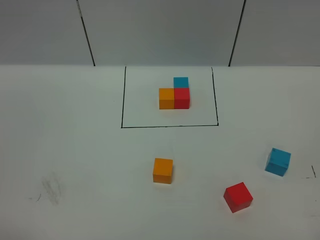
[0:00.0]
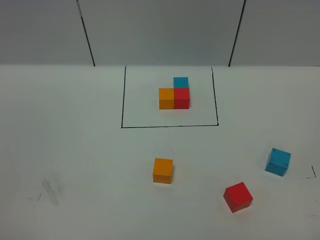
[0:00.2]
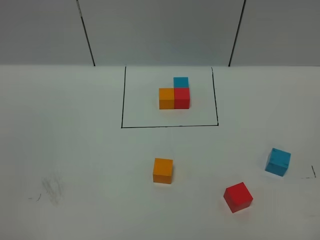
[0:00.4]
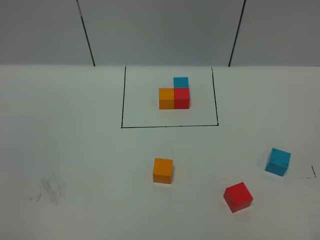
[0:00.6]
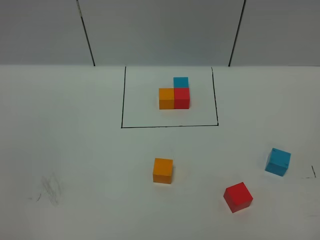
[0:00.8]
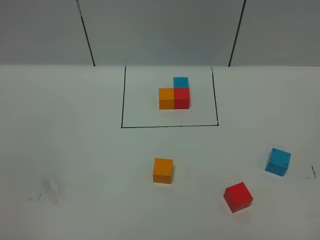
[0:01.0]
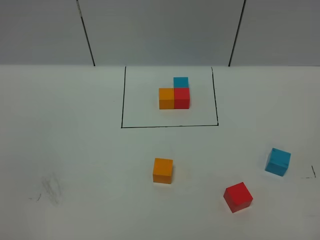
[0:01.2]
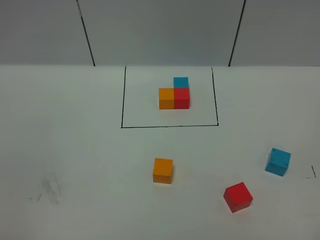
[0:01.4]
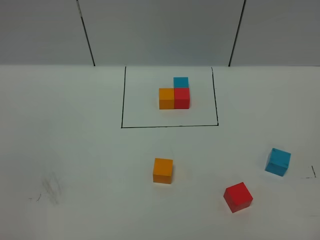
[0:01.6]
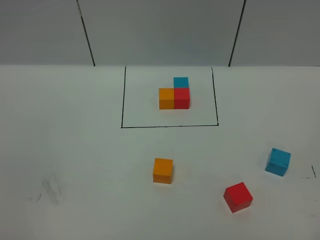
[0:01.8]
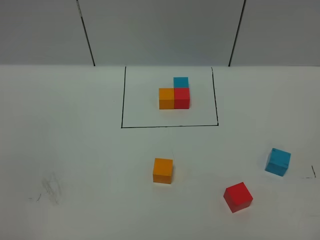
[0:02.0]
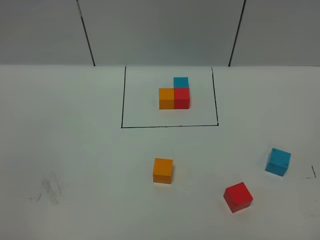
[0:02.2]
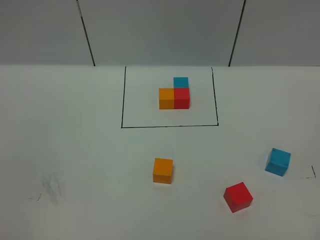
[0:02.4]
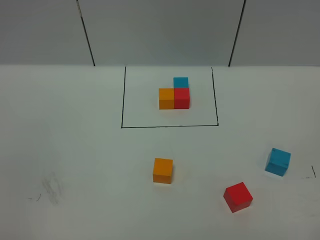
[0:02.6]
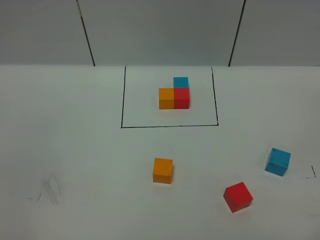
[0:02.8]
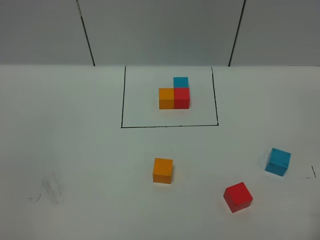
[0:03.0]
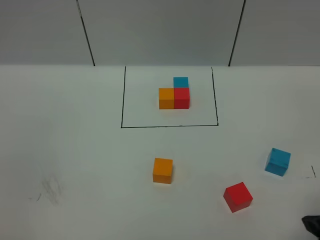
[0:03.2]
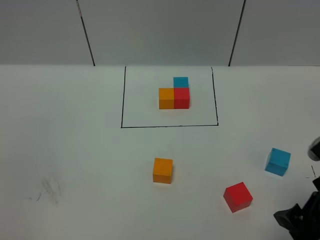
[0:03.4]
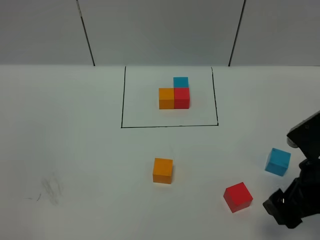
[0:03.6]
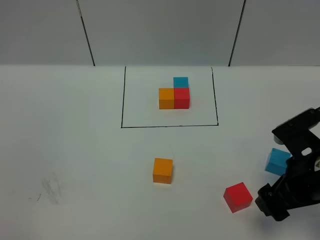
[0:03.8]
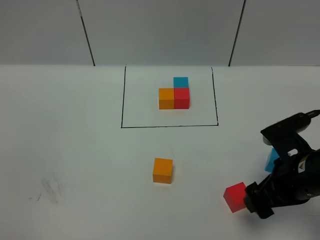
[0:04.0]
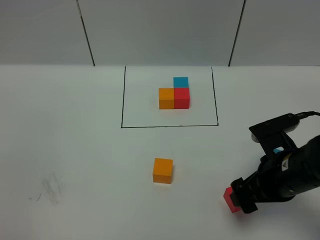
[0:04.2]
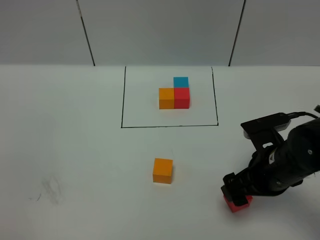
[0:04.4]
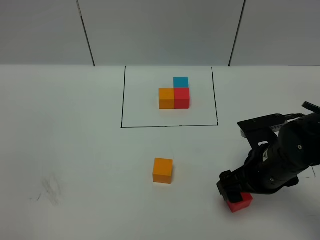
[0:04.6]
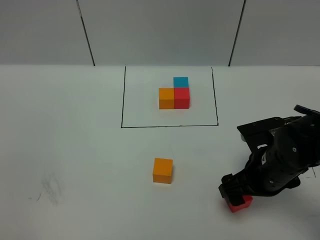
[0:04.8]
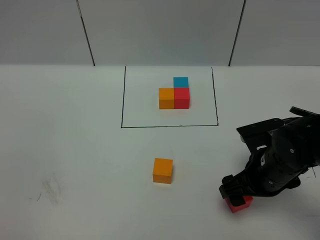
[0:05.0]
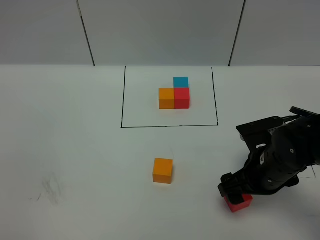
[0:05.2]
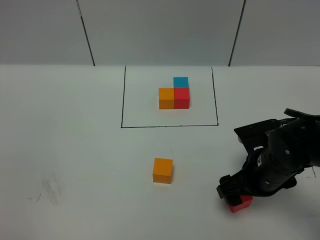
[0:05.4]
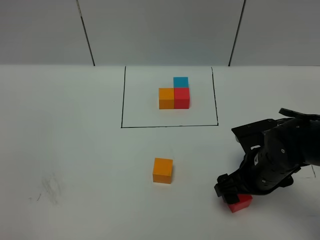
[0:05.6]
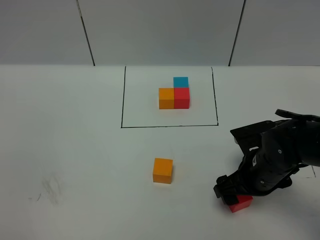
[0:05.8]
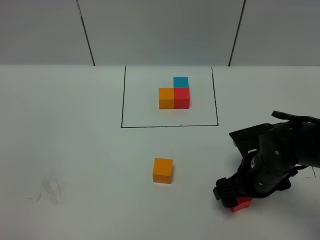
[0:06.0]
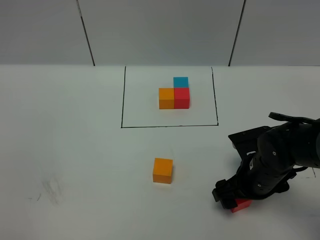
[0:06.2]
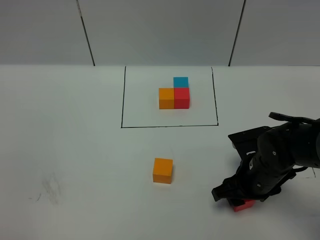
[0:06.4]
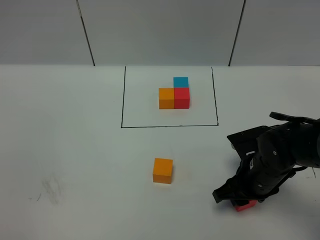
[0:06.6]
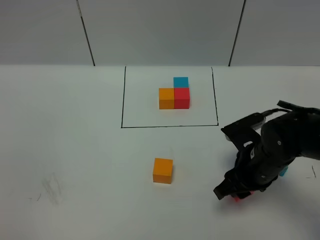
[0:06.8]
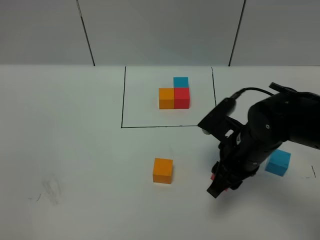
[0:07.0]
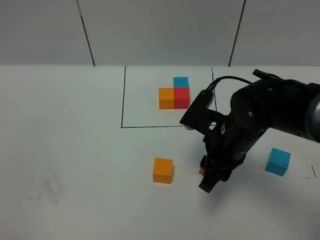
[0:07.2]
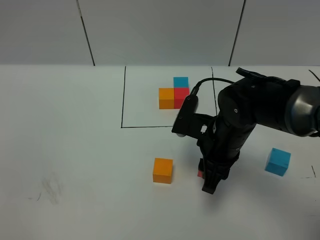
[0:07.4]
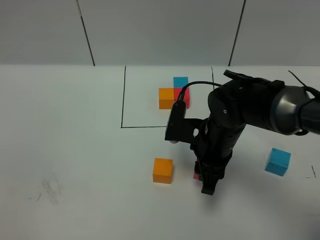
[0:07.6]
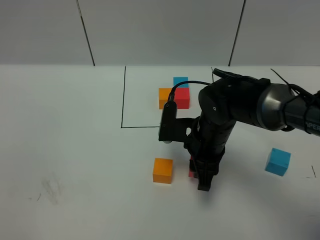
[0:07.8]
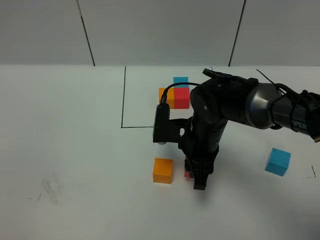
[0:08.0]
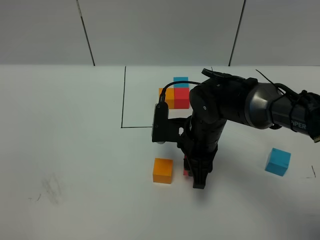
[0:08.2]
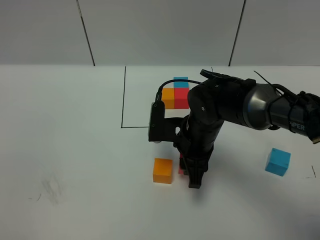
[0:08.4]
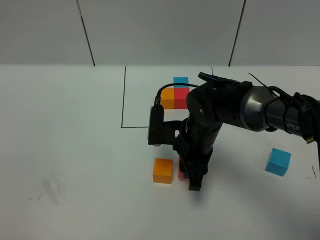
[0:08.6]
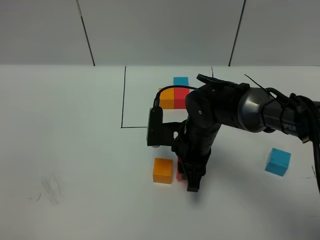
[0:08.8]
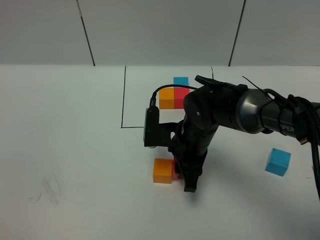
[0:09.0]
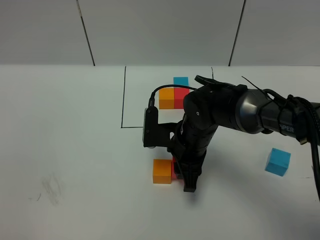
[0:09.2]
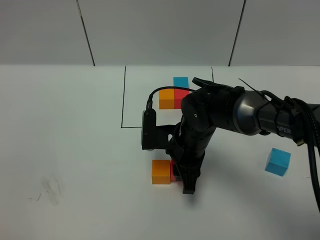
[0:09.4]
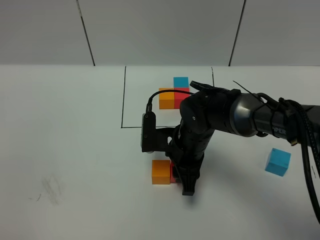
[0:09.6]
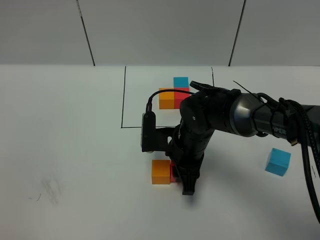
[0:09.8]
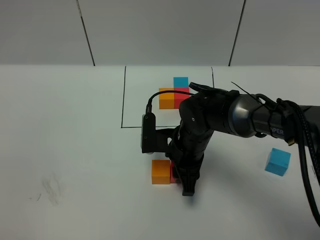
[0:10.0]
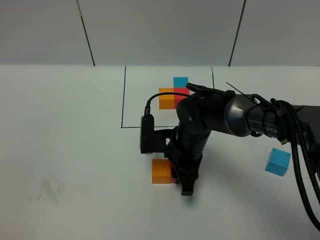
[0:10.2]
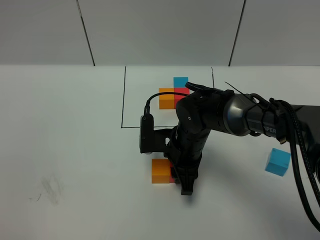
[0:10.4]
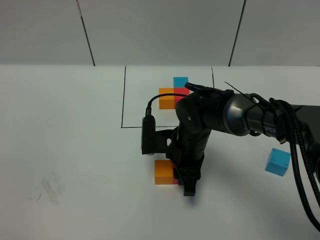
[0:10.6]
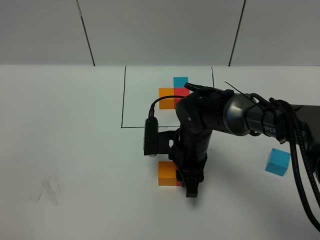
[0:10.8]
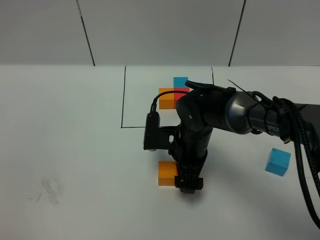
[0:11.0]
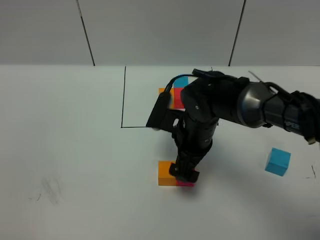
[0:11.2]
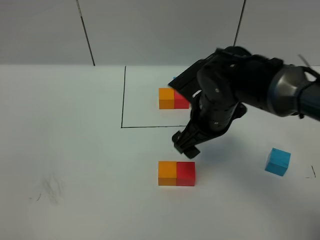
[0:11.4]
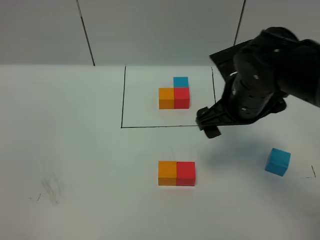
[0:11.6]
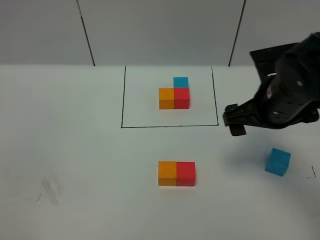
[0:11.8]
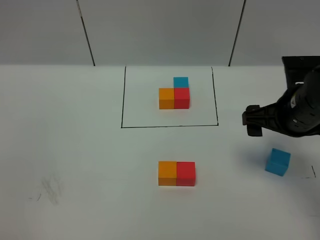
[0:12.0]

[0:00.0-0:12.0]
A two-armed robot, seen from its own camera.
Task of the whole recording: According to the building block template in front, assemble the scattered blocks together.
Step, 0:00.0 to 0:11.2: Put the red cube on the right of the orange cube.
0:03.0 to 0:04.4: The right gripper travels forward, to the left and downward by about 20 cm.
0:04.4 to 0:06.0: The right gripper heads downward, covering roughly 5 cm.
0:06.0 to 0:07.6: The right gripper is displaced to the left by approximately 10 cm, and closes up.
0:07.6 to 0:09.0: The grippers move only a little.
0:09.0 to 0:10.4: There are only small adjustments of the grippers.
0:10.4 to 0:12.0: The right gripper is displaced to the right and upward by some 20 cm, and opens up.

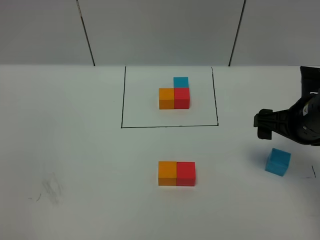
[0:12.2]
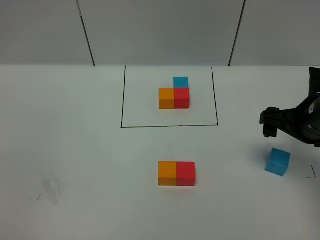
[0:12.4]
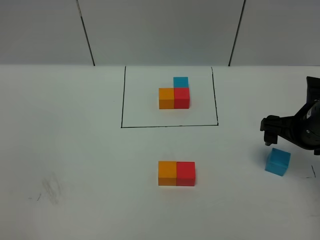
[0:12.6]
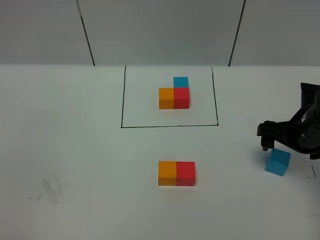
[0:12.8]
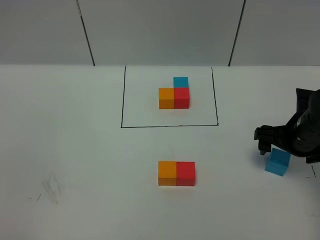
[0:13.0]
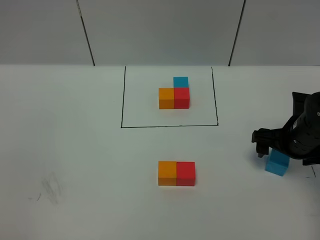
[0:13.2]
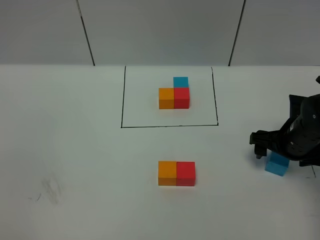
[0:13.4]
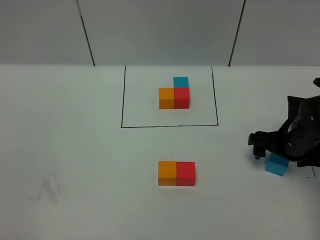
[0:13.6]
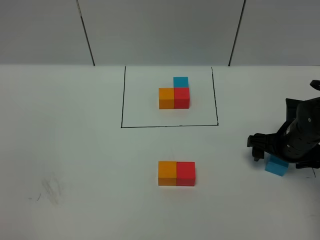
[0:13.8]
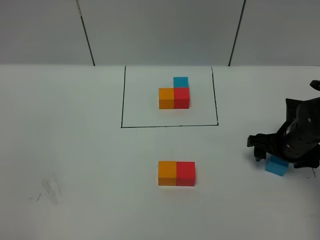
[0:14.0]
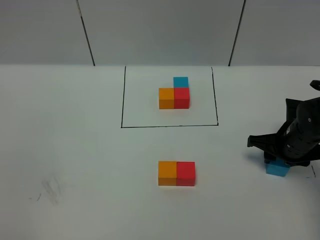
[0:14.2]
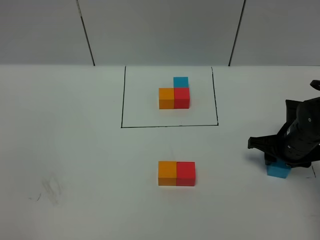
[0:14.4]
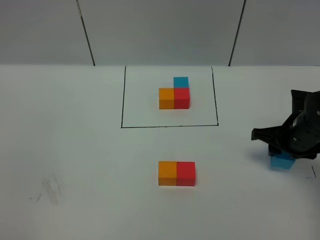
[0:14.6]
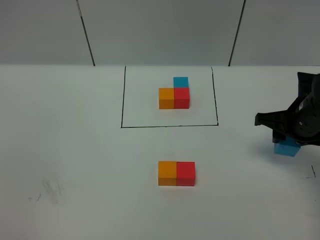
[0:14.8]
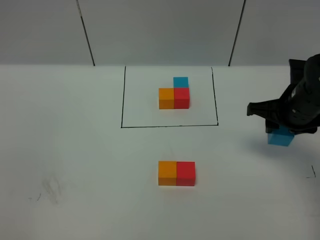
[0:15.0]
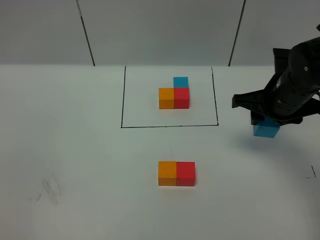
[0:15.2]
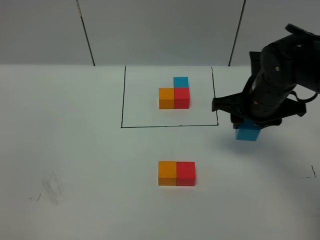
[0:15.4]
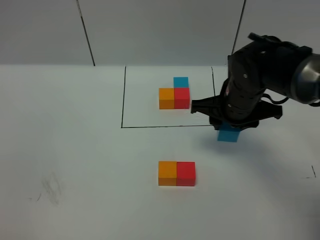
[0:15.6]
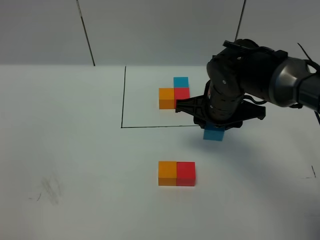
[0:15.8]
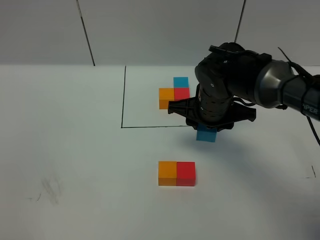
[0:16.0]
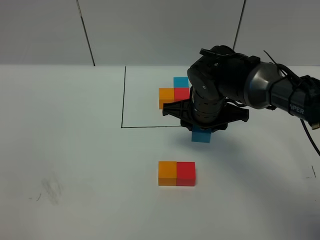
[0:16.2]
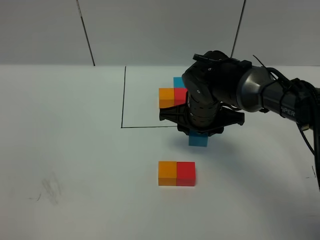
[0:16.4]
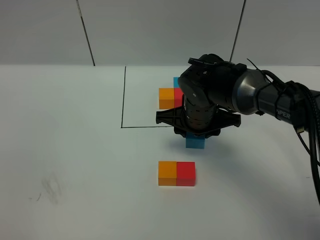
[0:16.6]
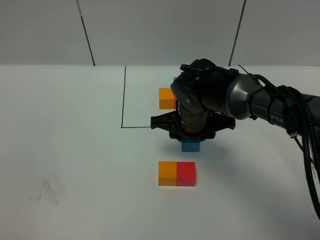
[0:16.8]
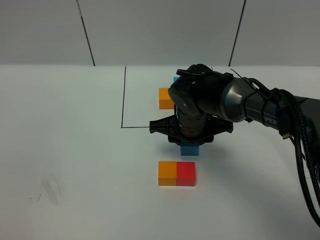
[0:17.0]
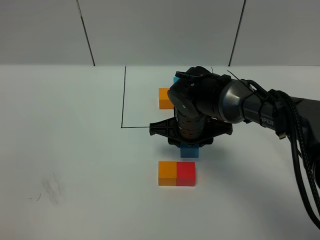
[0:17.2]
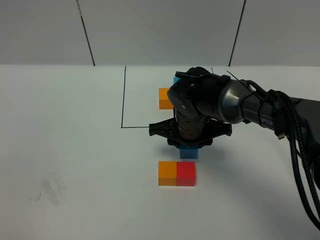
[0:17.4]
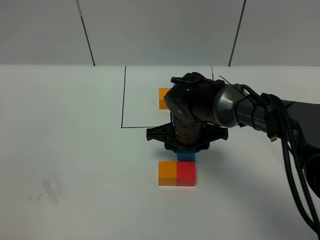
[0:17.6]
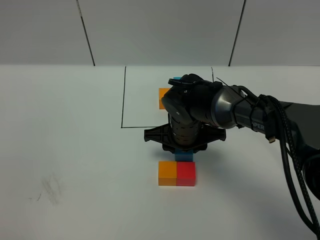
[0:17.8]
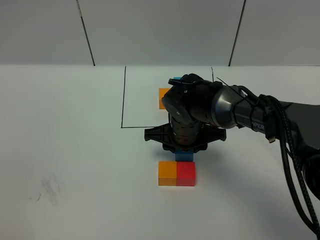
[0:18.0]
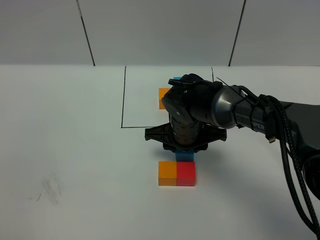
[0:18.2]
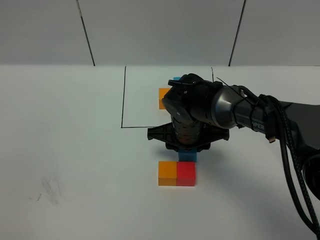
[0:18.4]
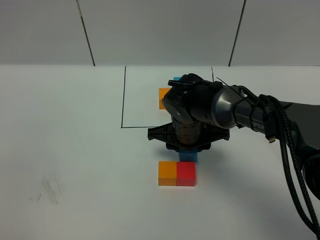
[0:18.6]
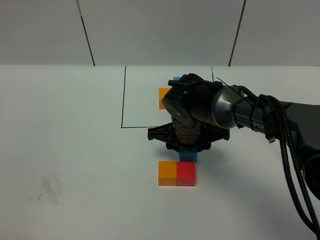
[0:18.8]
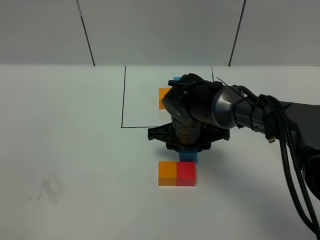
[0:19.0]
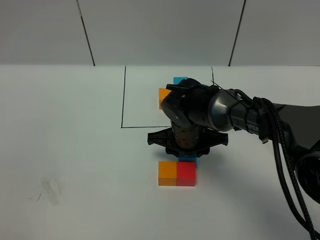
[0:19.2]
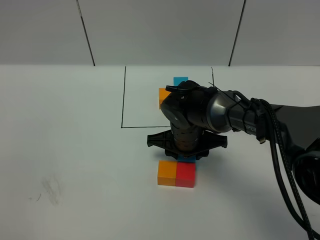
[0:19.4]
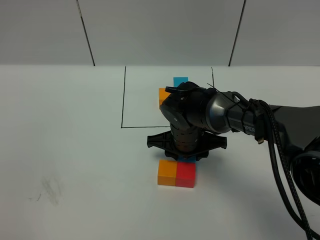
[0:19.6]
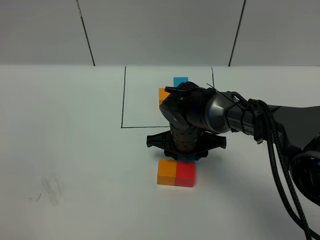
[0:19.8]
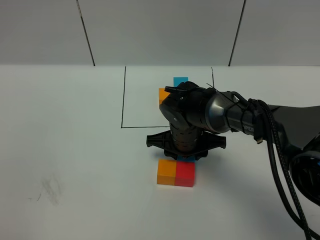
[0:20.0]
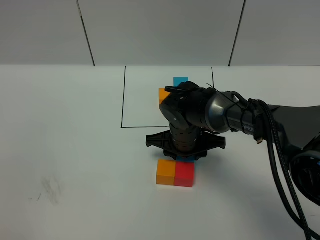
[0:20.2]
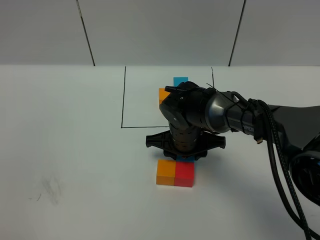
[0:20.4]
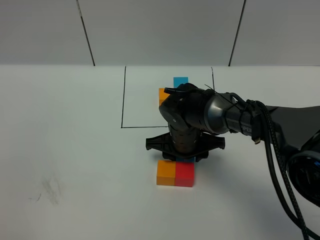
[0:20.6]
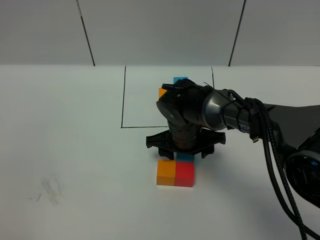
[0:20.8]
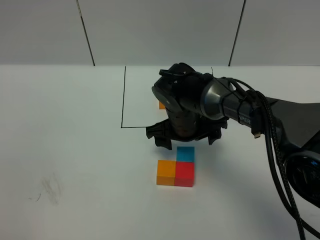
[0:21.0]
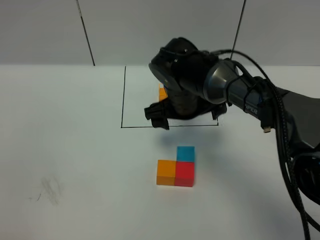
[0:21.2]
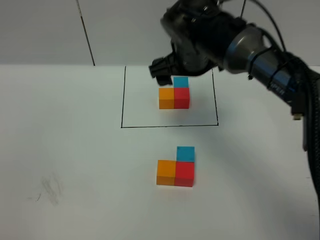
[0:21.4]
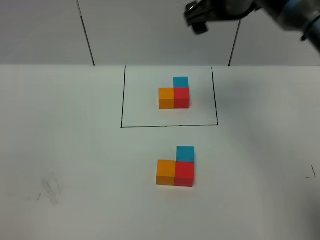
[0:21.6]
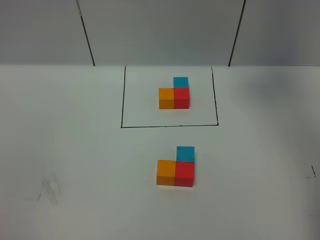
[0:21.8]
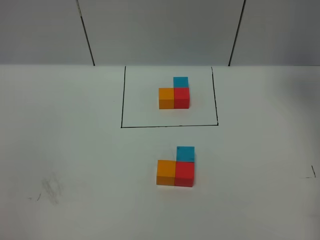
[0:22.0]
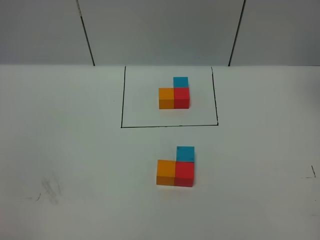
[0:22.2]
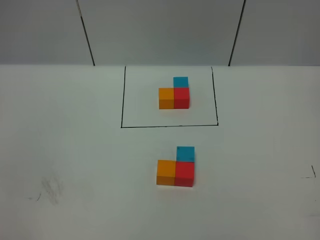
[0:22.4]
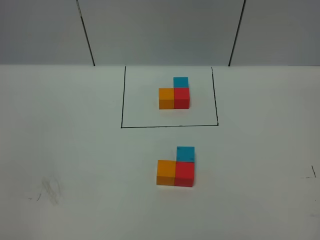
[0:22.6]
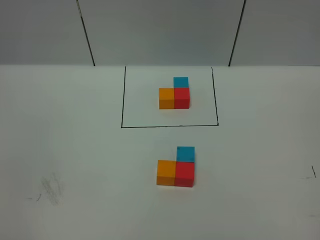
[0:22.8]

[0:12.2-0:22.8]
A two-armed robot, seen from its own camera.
Task of the whole recording: According to the building block template in front, assemble the scattered blocks together.
Step, 0:12.2 to 0:20.8: Put the blue cube on the behind of the red cube.
0:12.2 to 0:13.8: The right gripper moves downward, approximately 10 cm.
0:13.8 to 0:15.2: The right gripper heads upward and to the left, covering about 10 cm, and closes its fingers.
0:15.2 to 0:16.8: The right gripper travels to the left and downward by approximately 15 cm.
0:16.8 to 0:19.8: There are only small adjustments of the grippers.
0:19.8 to 0:21.2: The right gripper moves upward, roughly 10 cm, and opens.
0:21.2 to 0:22.8: The right gripper moves to the right, upward and backward, approximately 50 cm.
